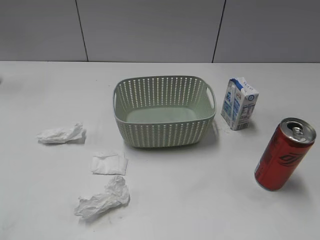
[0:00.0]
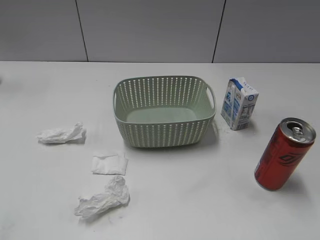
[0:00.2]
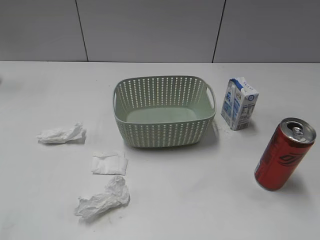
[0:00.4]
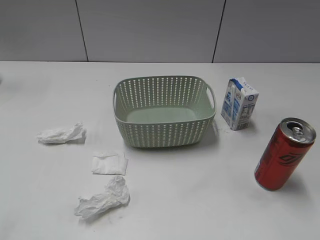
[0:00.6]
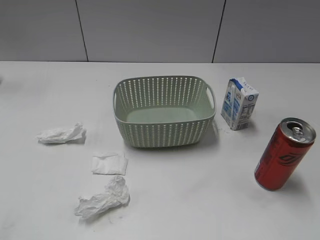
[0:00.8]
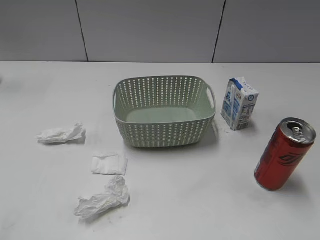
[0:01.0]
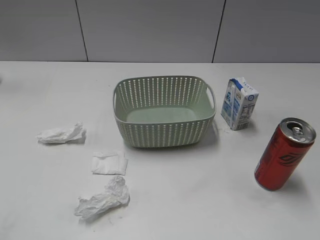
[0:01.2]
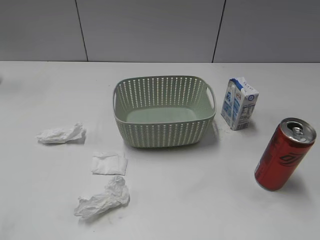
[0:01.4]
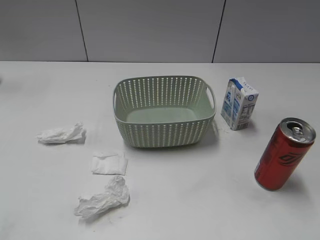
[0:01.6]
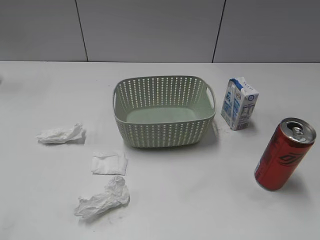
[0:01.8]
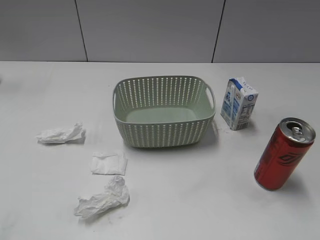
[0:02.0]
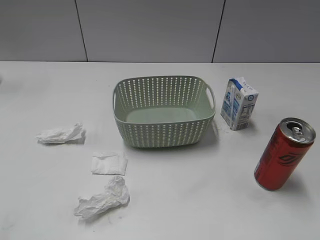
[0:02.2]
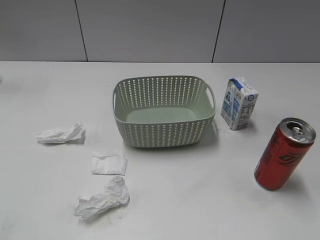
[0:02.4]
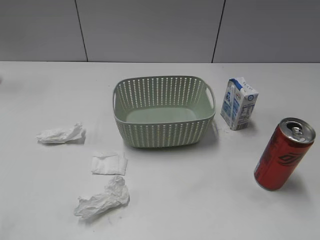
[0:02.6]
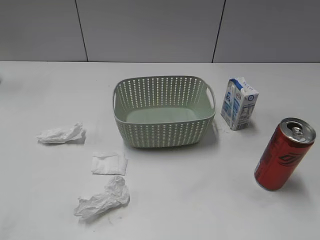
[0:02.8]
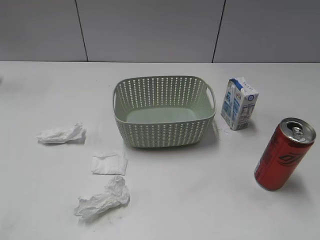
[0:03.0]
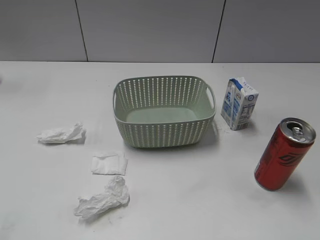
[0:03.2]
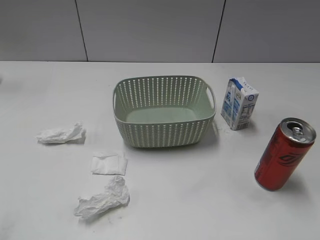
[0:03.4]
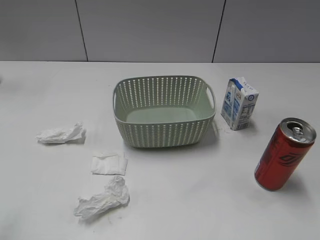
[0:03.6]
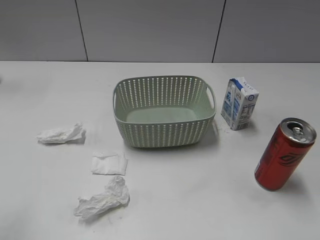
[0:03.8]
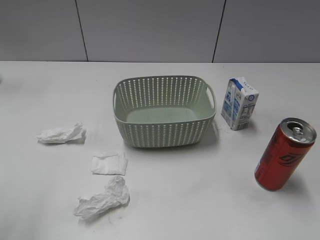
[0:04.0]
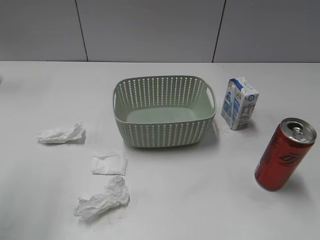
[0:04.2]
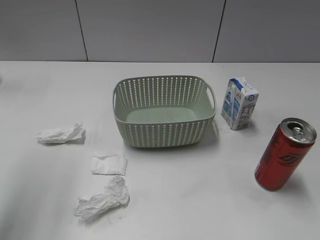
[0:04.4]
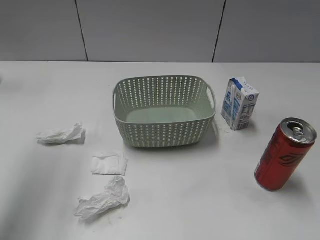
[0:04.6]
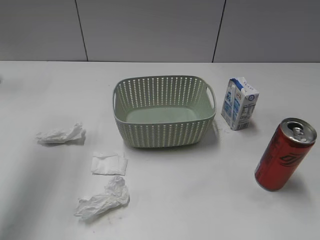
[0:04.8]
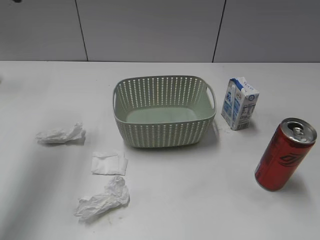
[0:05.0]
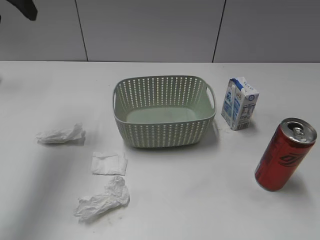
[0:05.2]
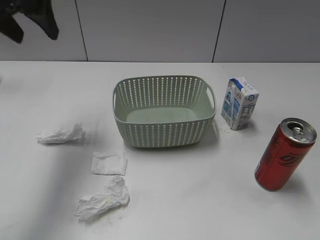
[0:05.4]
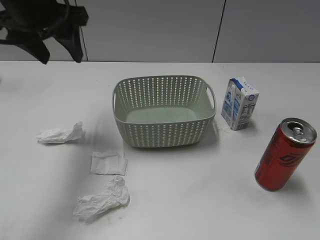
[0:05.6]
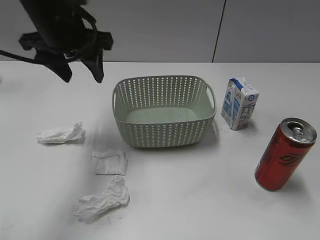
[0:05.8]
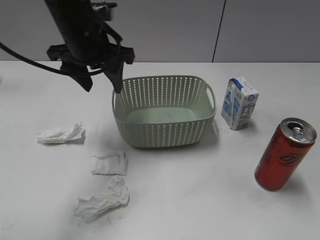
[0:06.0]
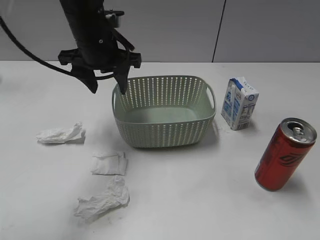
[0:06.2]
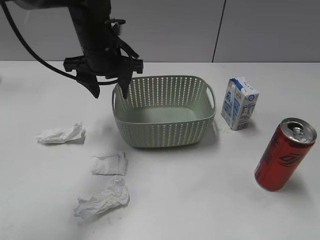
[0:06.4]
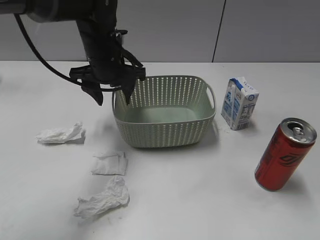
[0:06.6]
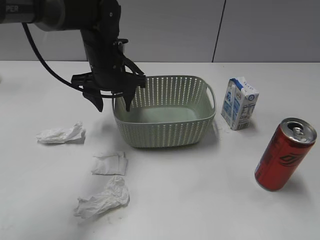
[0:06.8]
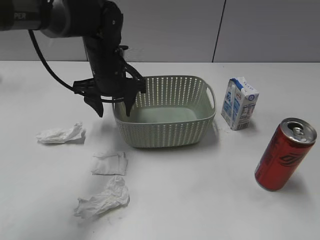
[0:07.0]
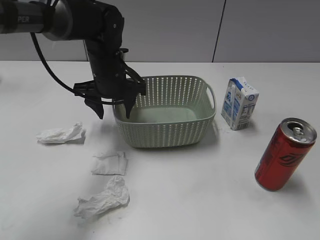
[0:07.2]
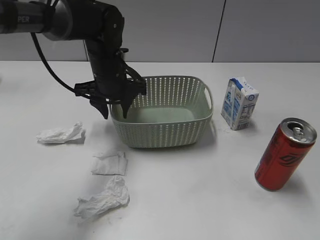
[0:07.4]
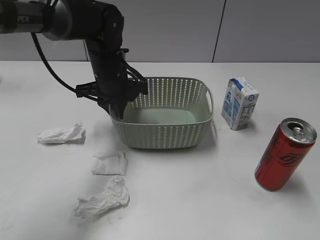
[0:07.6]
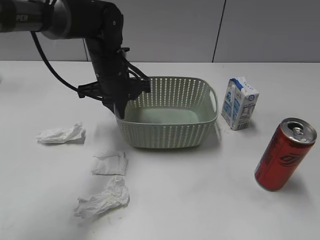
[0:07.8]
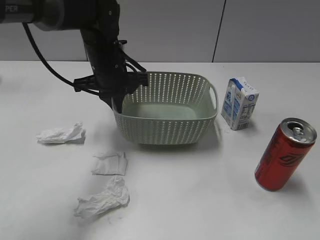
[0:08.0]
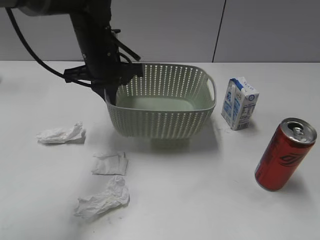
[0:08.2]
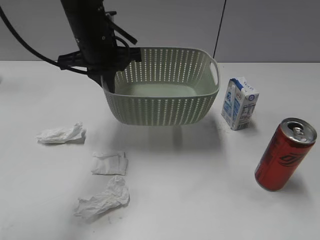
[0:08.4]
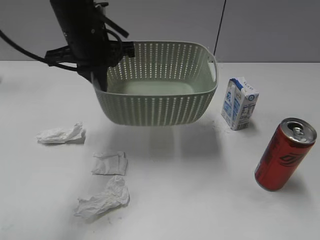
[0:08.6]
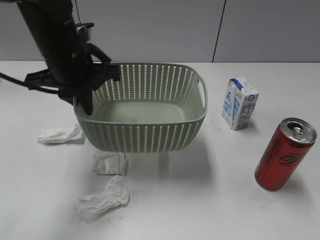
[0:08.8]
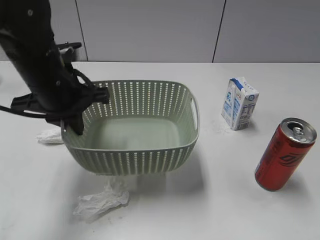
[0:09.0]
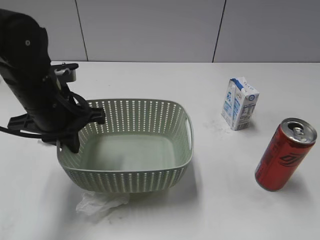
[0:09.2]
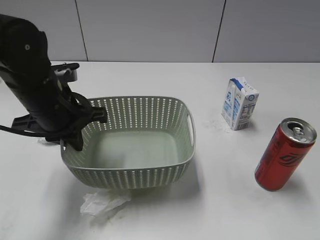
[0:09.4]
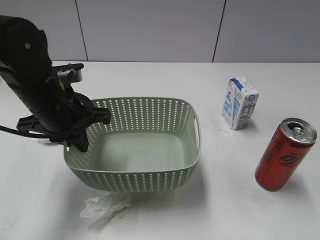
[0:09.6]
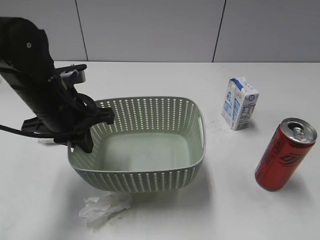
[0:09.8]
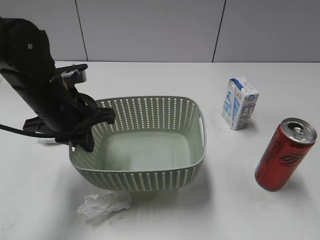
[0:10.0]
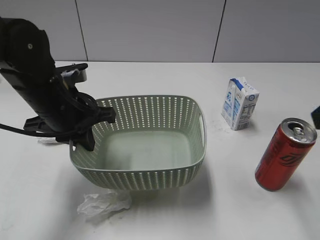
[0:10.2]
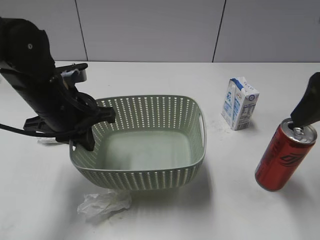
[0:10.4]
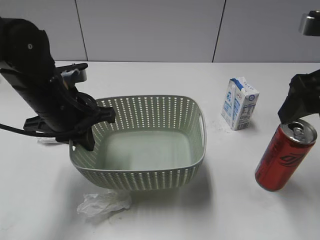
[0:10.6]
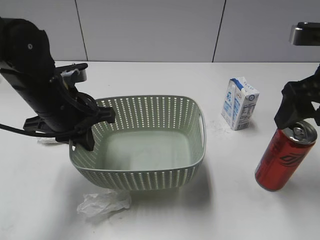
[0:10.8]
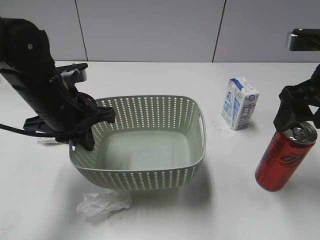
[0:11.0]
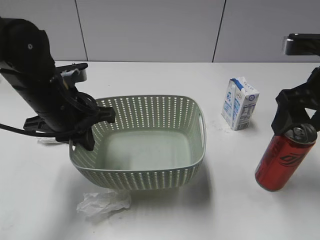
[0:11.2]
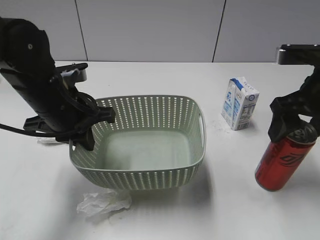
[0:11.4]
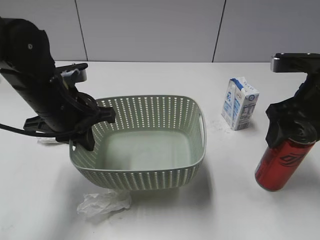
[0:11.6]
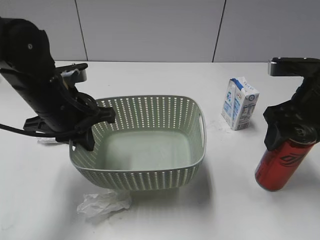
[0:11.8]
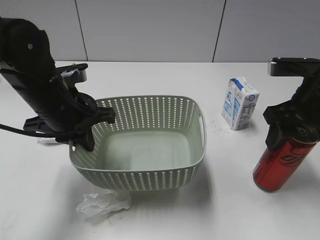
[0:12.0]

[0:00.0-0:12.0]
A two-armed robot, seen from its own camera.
Step, 0:05.0 to 0:07.6: Grasp the basket with left gripper.
Step, 0:07.8 to 0:10.0: Lift the basket with left gripper.
0:03.0 to 0:04.4: The left gripper shifts approximately 20 cm forward.
0:04.4 to 0:06.0: The left gripper heads to the right, downward and forward, covering approximately 25 cm.
0:06.0 to 0:07.6: The left gripper heads downward, covering roughly 10 cm, and closes its fingers.
0:07.6 to 0:09.0: The left gripper moves backward, to the left and upward, about 15 cm.
0:09.0 to 0:10.4: The right gripper moves forward, approximately 25 cm.
0:10.4 to 0:12.0: The right gripper moves downward, some 10 cm, and closes.

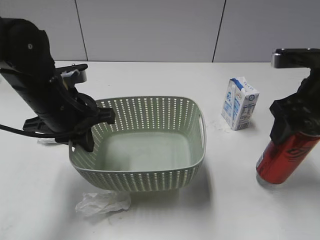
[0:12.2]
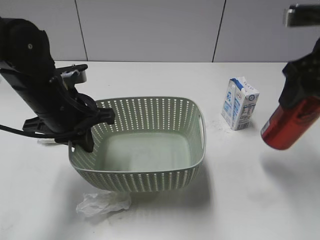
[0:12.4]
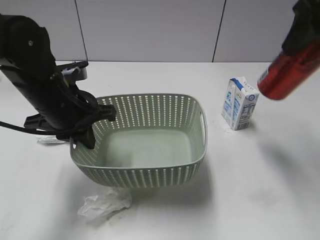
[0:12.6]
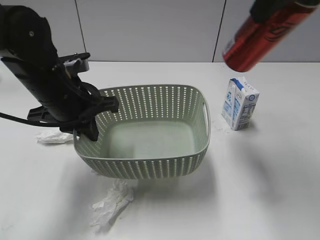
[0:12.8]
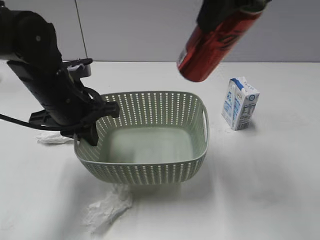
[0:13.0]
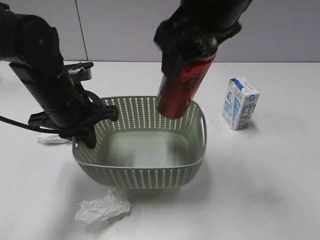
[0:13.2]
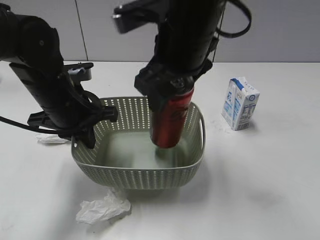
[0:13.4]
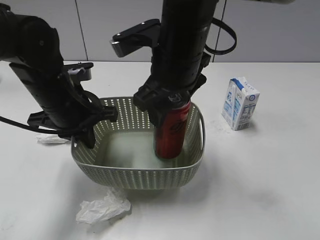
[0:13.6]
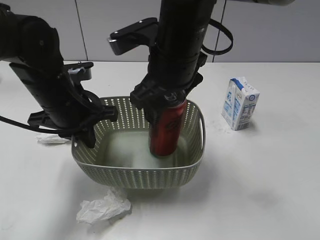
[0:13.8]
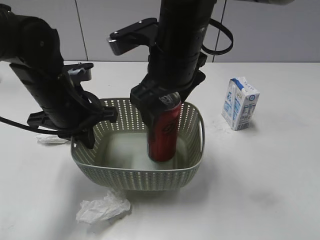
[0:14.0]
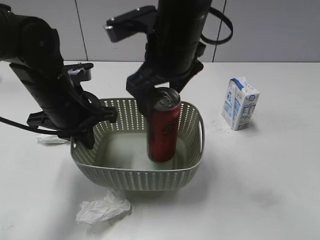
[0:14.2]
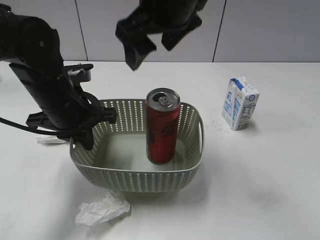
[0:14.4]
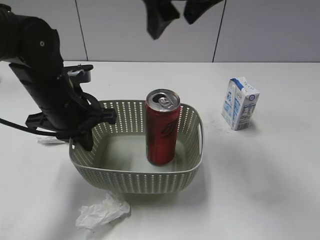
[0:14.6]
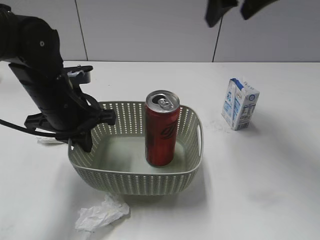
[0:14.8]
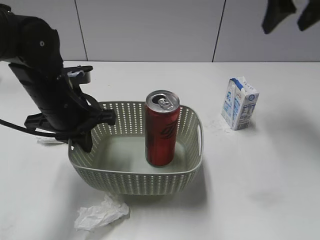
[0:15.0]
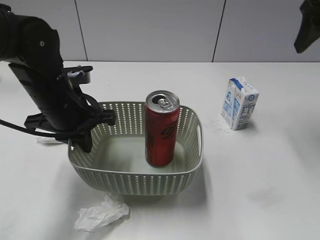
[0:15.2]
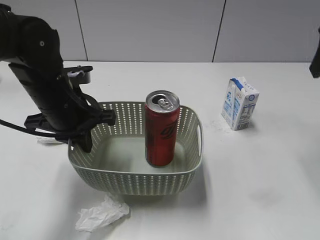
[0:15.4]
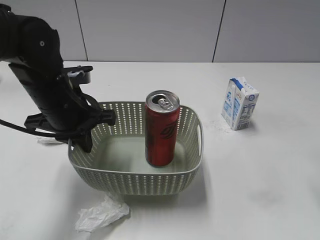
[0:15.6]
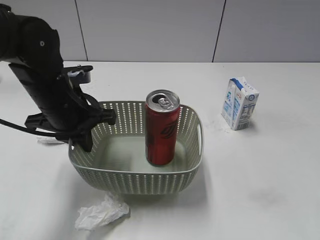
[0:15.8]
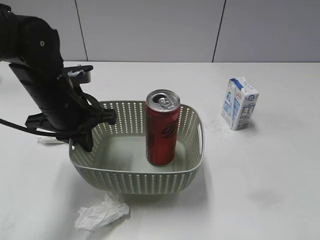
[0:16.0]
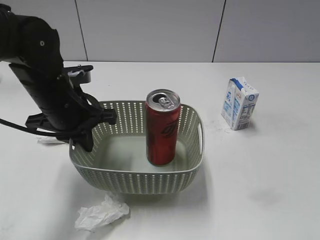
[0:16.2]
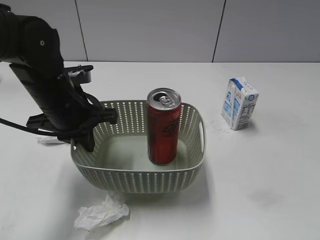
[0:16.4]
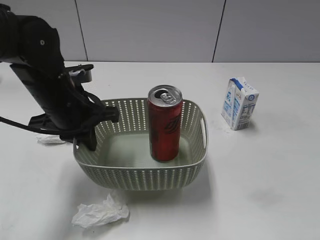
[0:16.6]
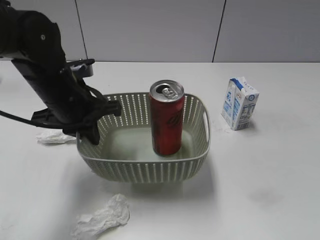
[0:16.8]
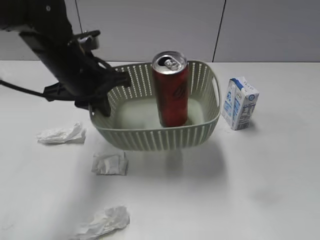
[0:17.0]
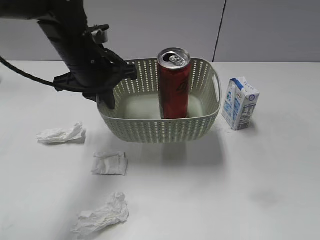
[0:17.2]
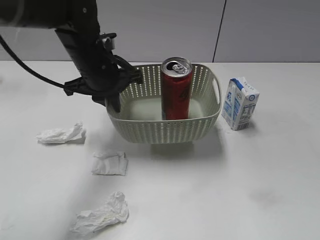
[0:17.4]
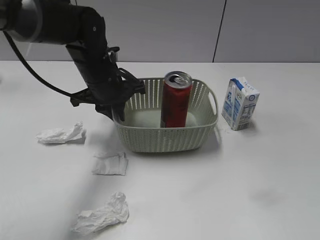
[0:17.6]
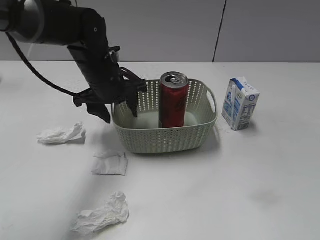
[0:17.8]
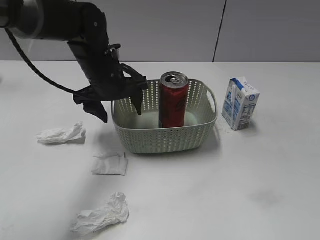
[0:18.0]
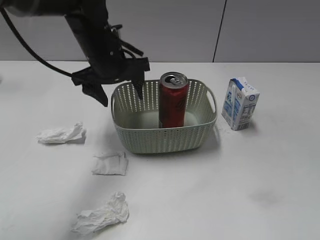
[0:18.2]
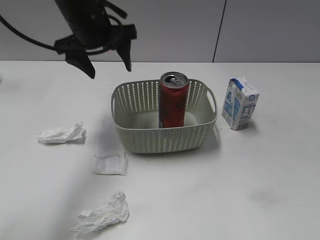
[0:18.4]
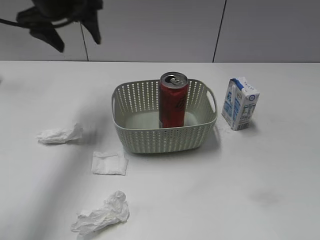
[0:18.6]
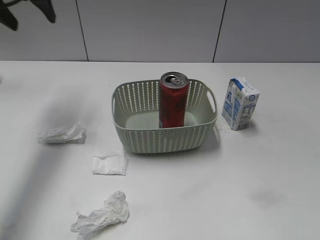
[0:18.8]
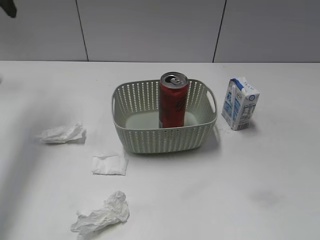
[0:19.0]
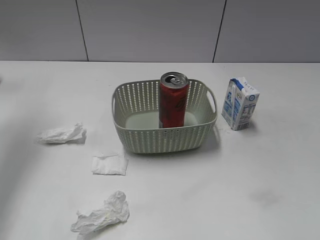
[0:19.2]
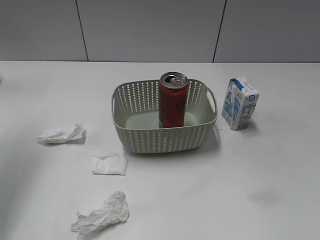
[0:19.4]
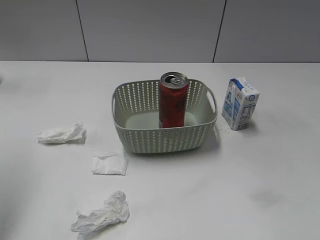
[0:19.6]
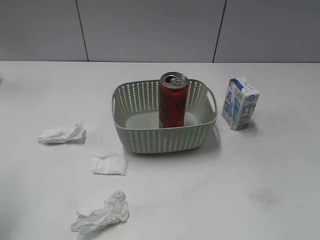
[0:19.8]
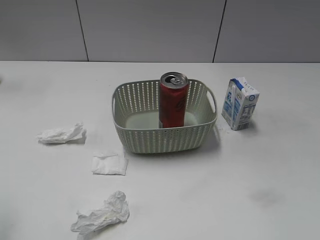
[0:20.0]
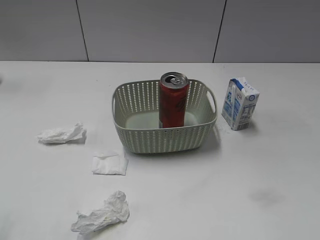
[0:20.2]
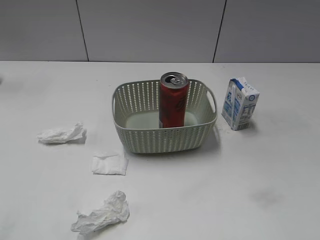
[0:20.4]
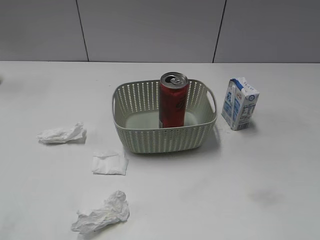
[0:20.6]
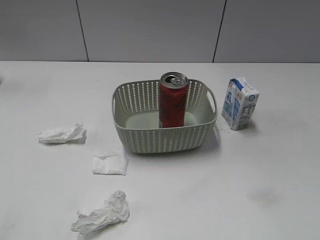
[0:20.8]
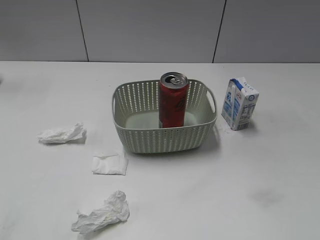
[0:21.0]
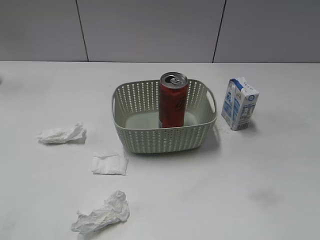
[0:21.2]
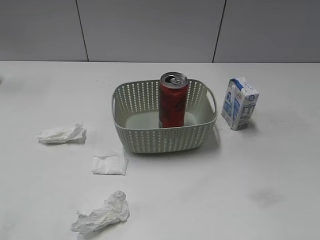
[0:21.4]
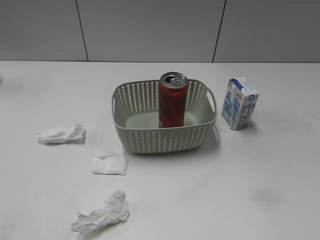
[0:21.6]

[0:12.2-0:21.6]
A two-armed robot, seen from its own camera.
Step, 0:12.2 to 0:14.2: Place the cola can in the basket with right gripper.
Step, 0:14.4 to 0:17.8: Place the basket on the table with left gripper.
0:12.2 to 0:13.8: The right gripper is displaced to the left by approximately 20 cm, and opens its fingers.
0:13.8 to 0:15.4: The right gripper moves to the right, some 25 cm, and opens, then closes once more.
0:15.4 to 0:17.0: The left gripper moves approximately 5 cm, while the right gripper heads backward, covering some 30 cm.
0:17.0 to 0:18.4: The left gripper heads forward and upward, covering about 10 cm, and opens its fingers.
0:18.4 to 0:20.0: The left gripper is displaced backward and to the left by approximately 35 cm.

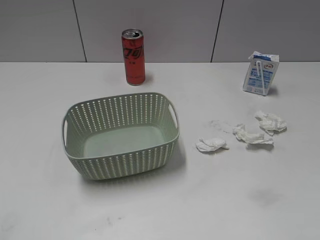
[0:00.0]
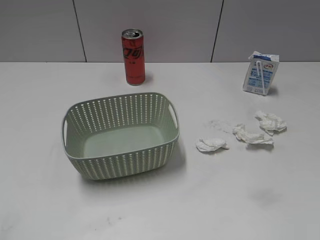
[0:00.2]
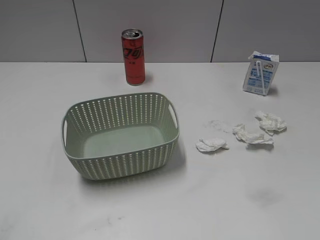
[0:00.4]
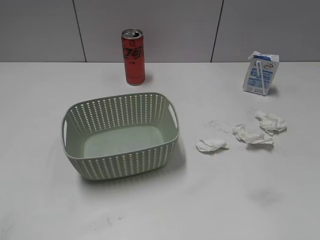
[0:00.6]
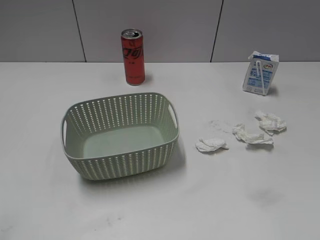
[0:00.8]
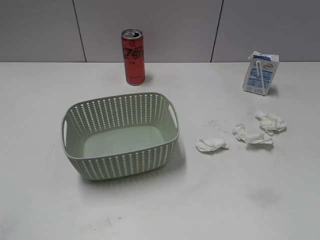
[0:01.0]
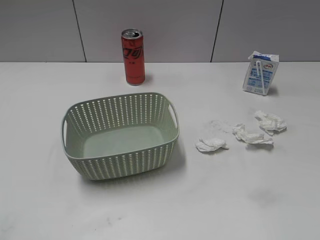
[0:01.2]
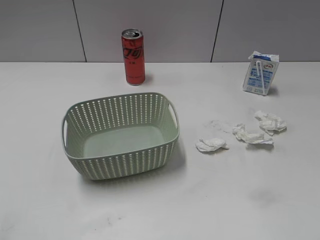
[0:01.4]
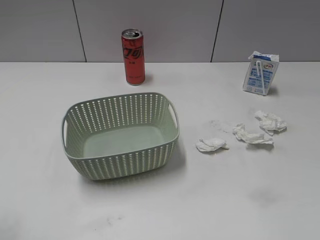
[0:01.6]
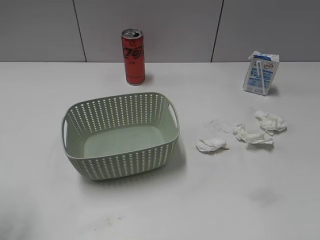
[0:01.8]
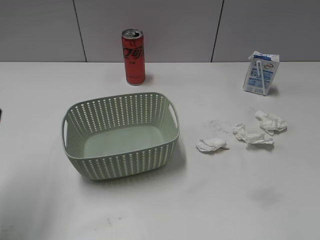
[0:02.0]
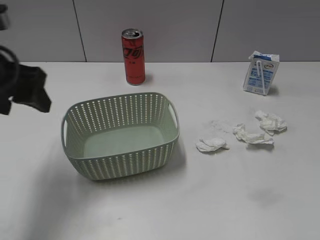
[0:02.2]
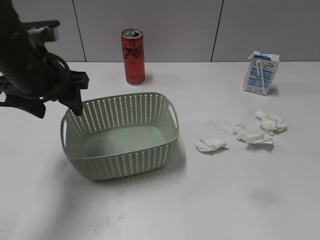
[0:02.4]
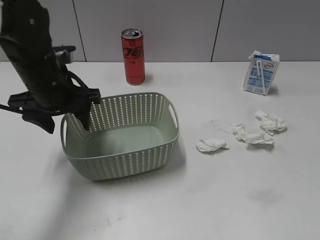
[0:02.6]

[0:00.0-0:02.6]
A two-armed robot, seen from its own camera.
0:01.2 to 0:02.6: The left gripper travels forward and to the right by approximately 35 cm.
